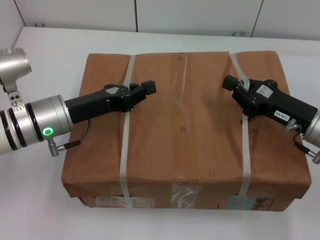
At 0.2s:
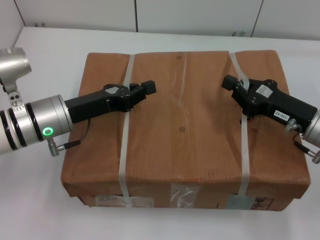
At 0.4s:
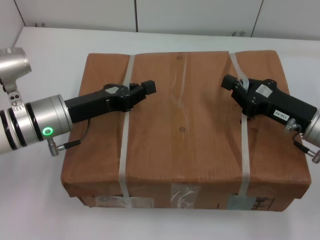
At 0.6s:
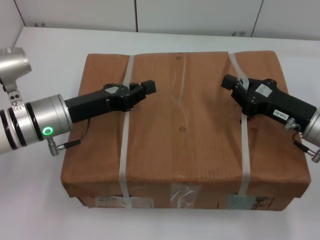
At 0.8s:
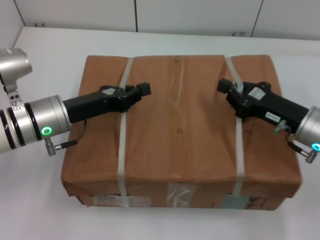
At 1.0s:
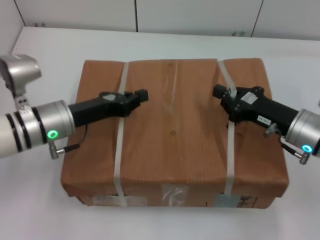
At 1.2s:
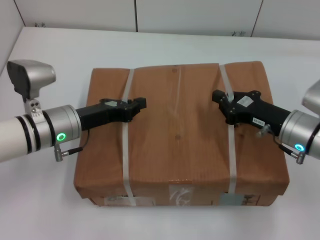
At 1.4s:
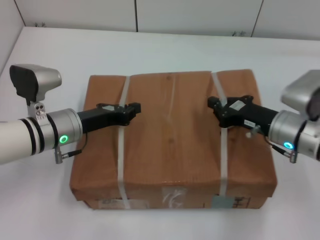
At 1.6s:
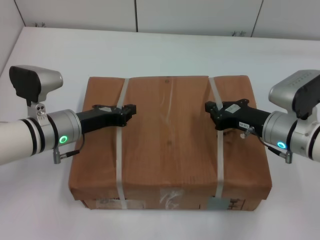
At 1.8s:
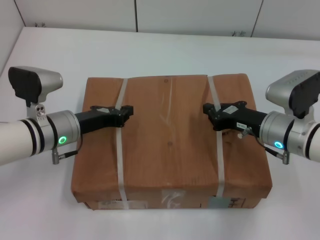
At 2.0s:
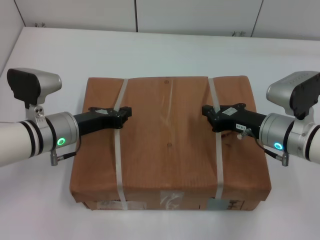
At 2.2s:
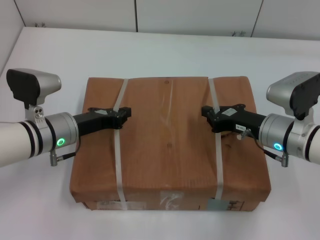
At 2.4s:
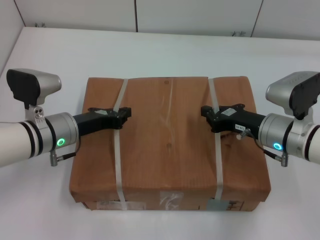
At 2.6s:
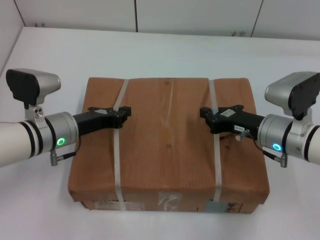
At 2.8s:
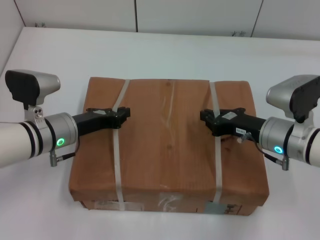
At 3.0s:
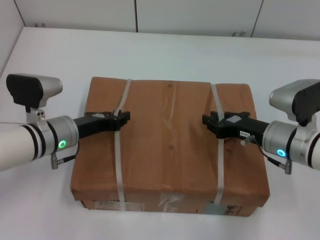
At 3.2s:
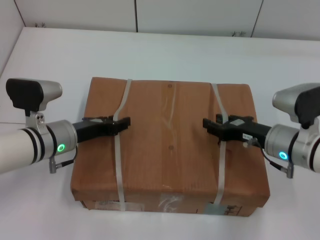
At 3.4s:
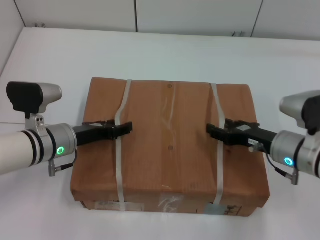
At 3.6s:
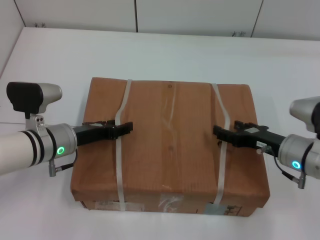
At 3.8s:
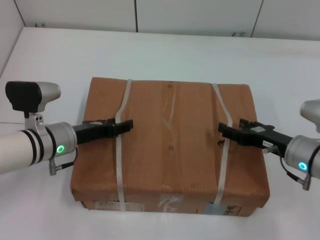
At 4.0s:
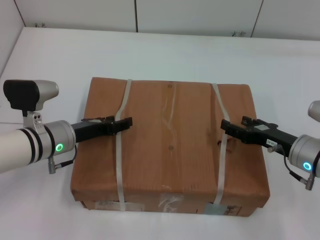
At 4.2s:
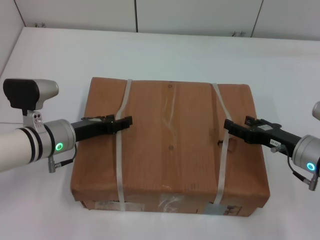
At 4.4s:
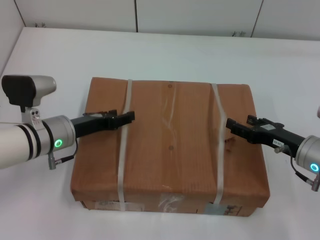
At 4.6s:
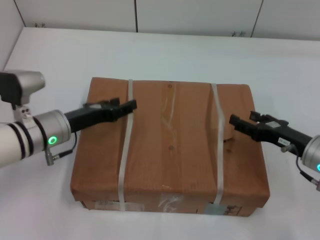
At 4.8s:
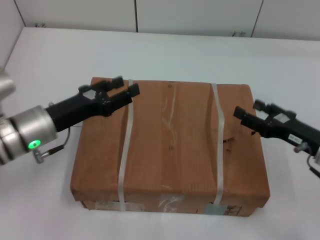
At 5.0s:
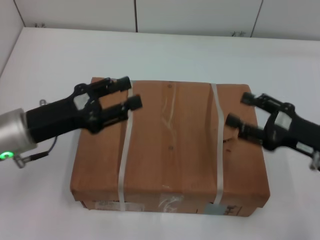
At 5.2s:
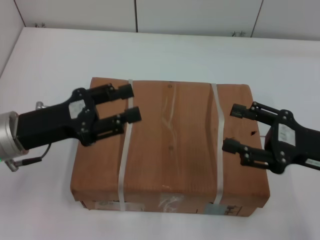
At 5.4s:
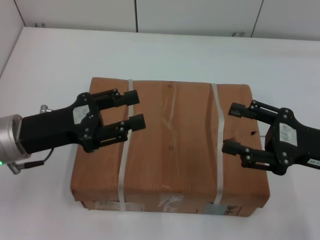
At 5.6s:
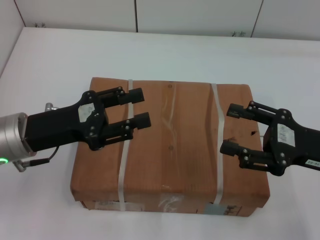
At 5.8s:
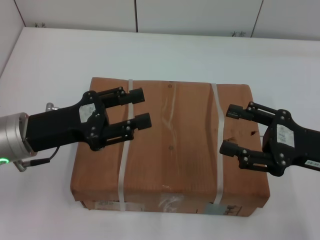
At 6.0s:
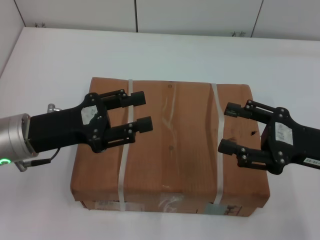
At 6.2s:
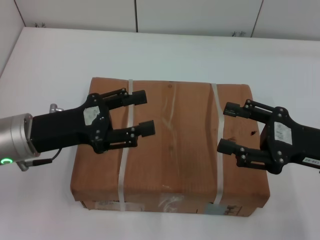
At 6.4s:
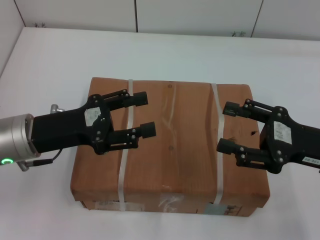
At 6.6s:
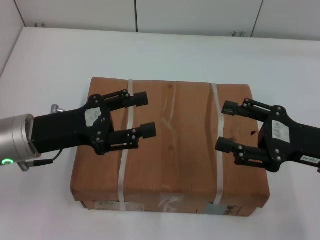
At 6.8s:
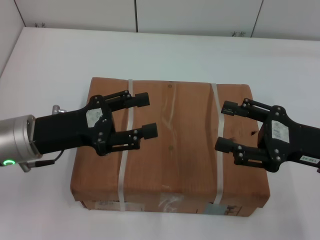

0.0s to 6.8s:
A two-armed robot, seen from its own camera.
Task of the whole recording: place the box on the table with both arms.
Step, 0.0s to 1.8s: Place the box on the table with left gripper.
Step, 0.0s to 1.8s: Place the box on the table with right gripper.
Step, 2.0s to 3.2s: Loosen the box on the table with left gripper.
Step, 2.0s to 3.2s: Loosen the box on the table with right gripper.
0.0s to 1.4s: The right gripper moves some 5 cm.
1.4s to 2.8s: The grippers stay close to where they were, moving slightly.
2.8s to 4.0s: The left gripper opens; the right gripper changes place by some 5 cm, and opens its fingers.
4.0s to 5.4s: The right gripper moves upward, approximately 10 cm, while the left gripper goes approximately 10 cm upward and backward.
5.4s to 6.8s: The two grippers keep their place.
